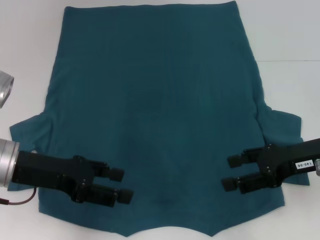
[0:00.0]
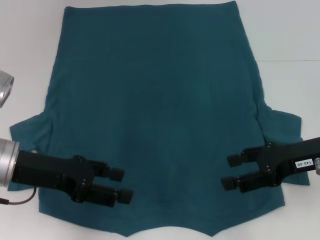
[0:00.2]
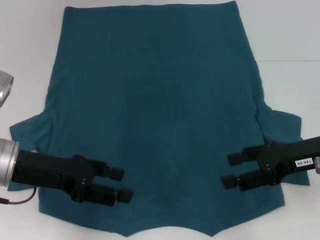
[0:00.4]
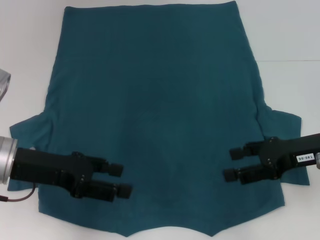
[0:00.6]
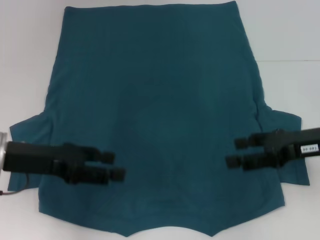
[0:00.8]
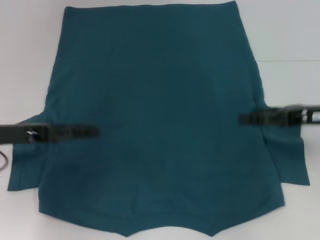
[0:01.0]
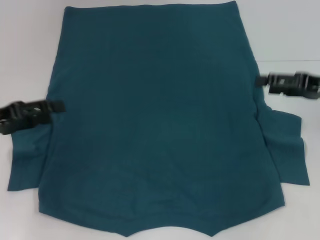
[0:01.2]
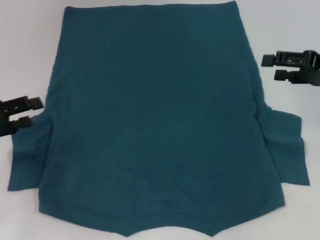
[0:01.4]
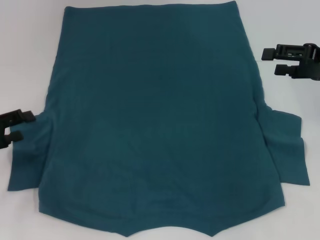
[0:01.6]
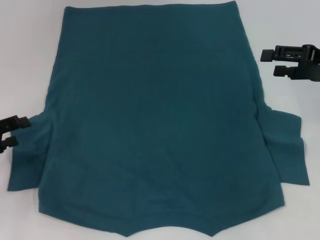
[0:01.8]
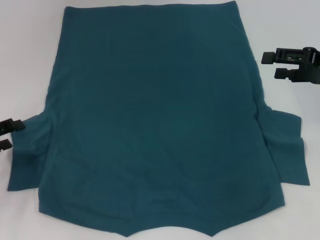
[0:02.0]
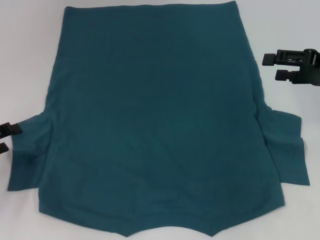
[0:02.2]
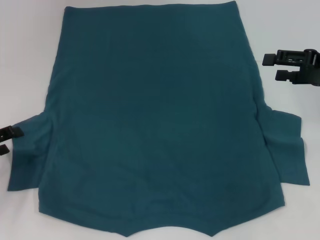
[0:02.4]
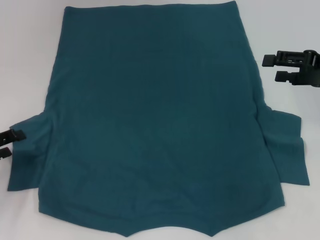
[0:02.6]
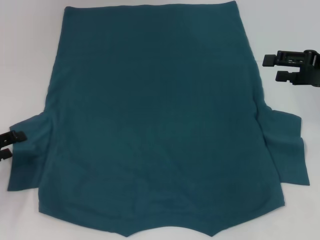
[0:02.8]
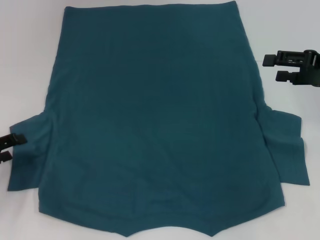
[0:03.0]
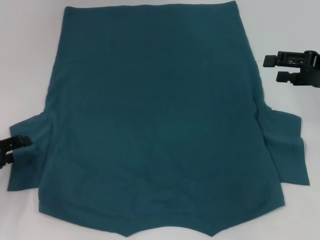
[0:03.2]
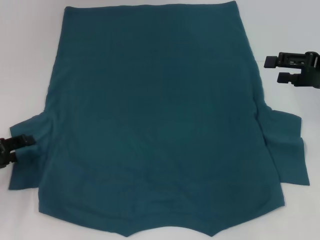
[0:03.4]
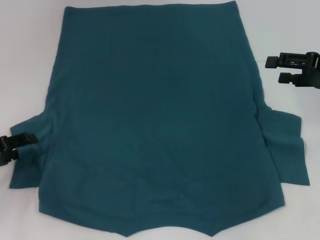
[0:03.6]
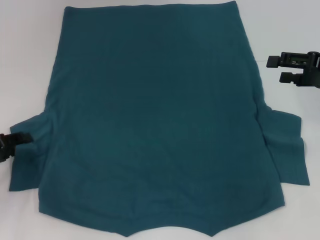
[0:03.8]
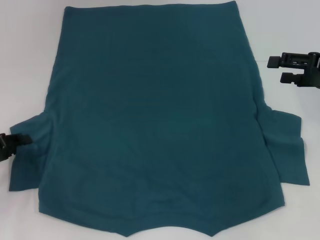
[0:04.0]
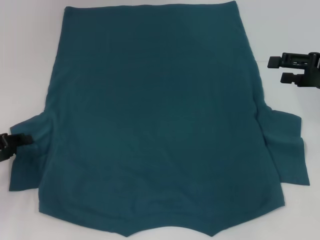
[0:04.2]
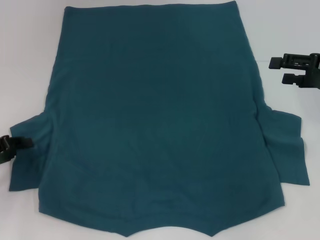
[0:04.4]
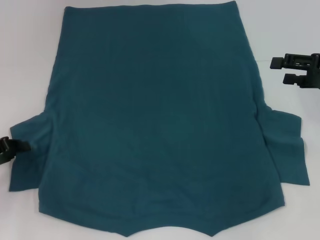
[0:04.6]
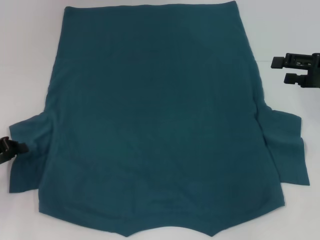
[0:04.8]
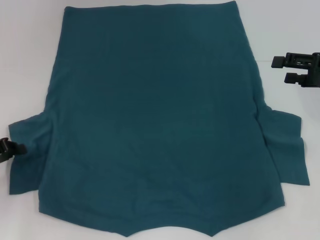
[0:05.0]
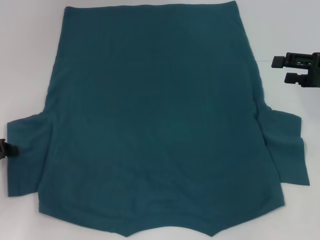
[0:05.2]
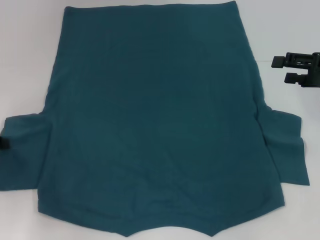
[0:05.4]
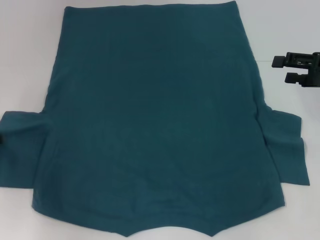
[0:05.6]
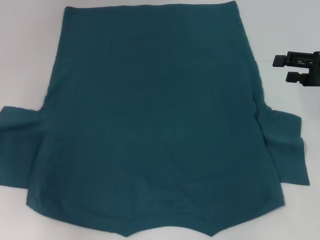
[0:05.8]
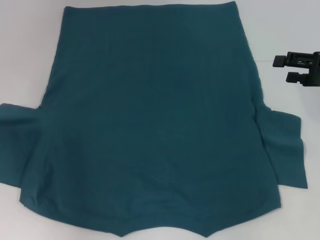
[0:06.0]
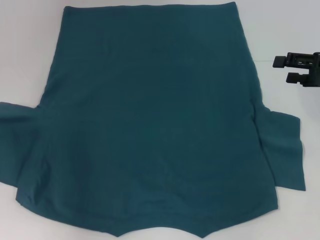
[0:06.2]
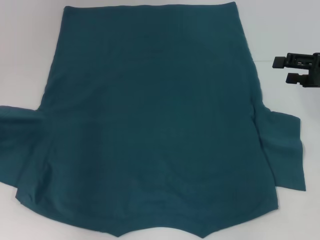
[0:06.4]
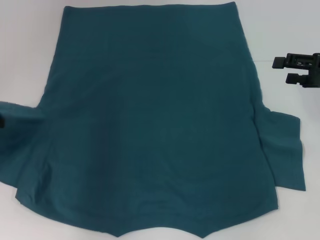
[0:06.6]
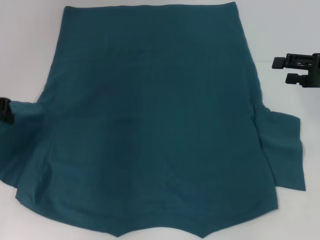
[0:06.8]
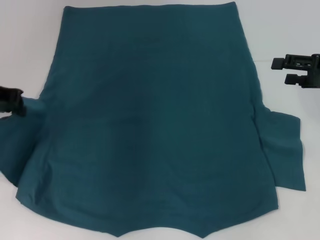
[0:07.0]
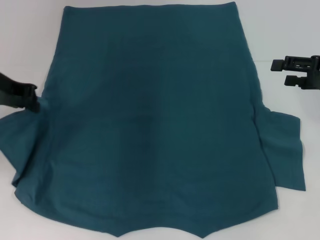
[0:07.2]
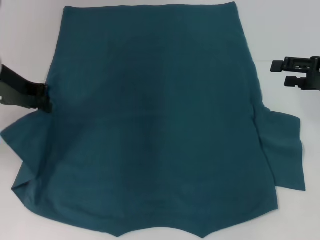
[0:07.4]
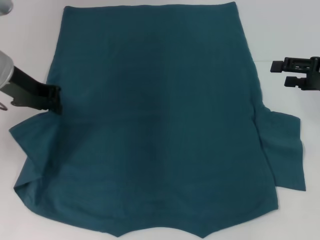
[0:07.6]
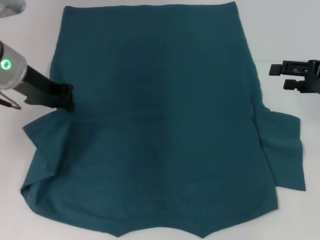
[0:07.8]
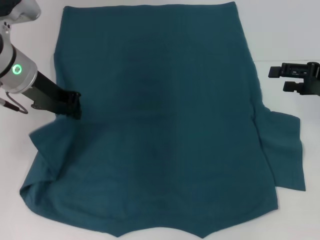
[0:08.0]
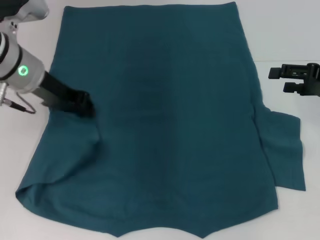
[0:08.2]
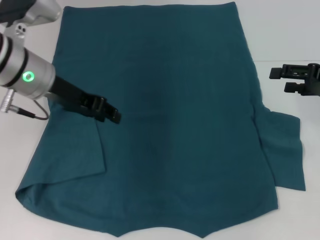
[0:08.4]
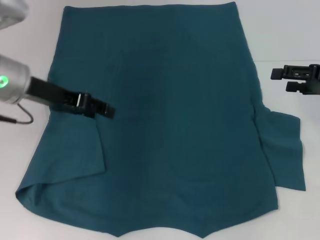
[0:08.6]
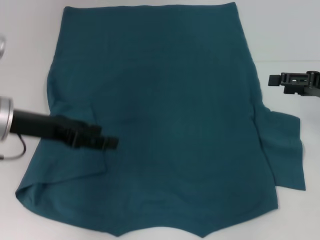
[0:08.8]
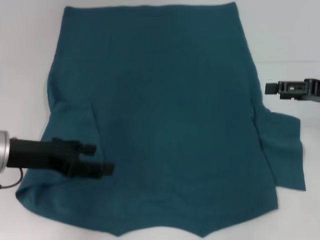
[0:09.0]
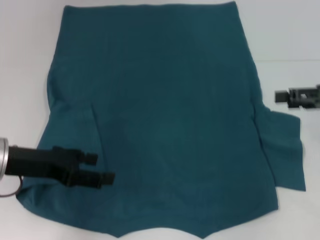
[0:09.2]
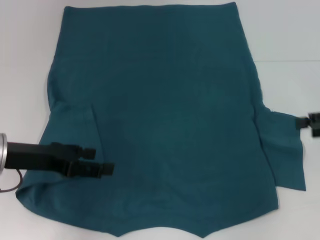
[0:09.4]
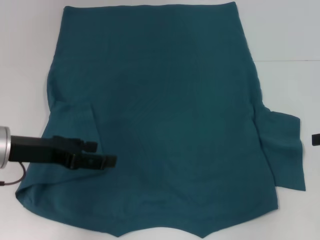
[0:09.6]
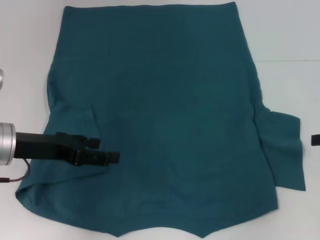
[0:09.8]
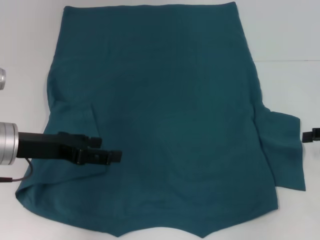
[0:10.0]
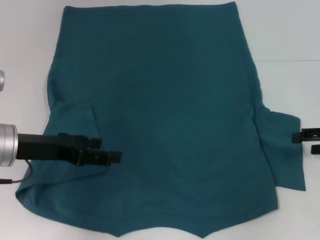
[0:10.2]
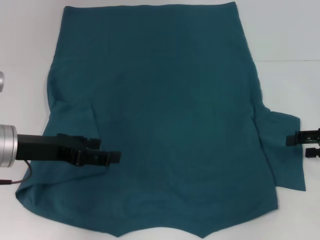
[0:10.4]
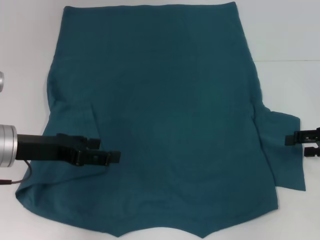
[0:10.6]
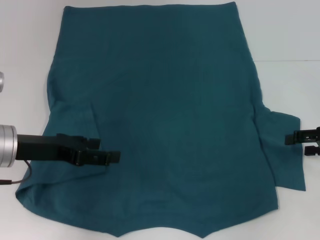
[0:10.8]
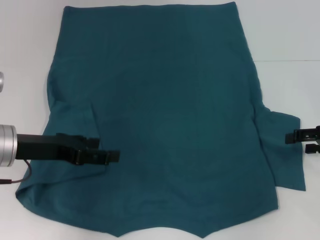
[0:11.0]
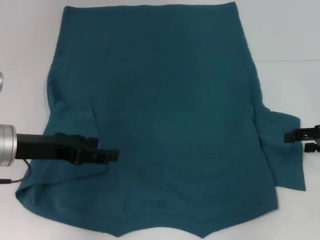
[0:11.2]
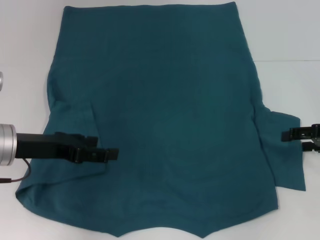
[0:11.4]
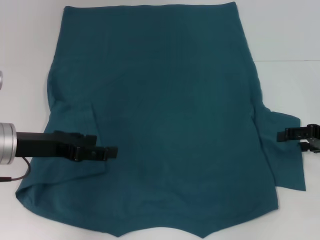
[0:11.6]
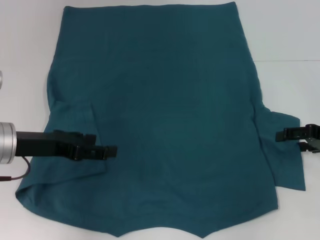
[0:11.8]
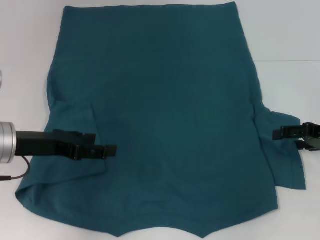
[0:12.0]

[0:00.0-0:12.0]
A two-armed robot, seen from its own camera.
Step, 0:00.0 to 0:09.0: Fold the bottom left sleeve with your left hand.
0:00.0 to 0:01.6: The right gripper shifts about 10 cm forward, to the right and upward, while the left gripper is displaced to the left by some 10 cm.
0:01.6 to 0:04.4: The grippers move only a little.
0:04.4 to 0:06.0: The left gripper travels upward and forward by approximately 10 cm, and closes up.
0:06.0 to 0:07.6: The left gripper goes approximately 15 cm to the right, upward and forward.
0:07.6 to 0:09.0: The left gripper heads backward and downward, covering approximately 10 cm, and opens.
0:09.0 to 0:10.4: The right gripper is displaced downward by some 5 cm.
0:10.4 to 0:12.0: The grippers move only a little.

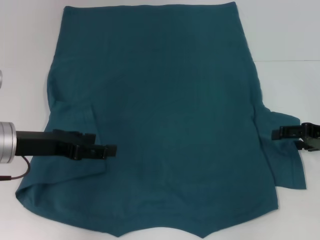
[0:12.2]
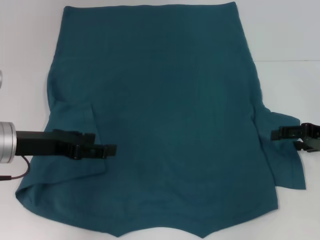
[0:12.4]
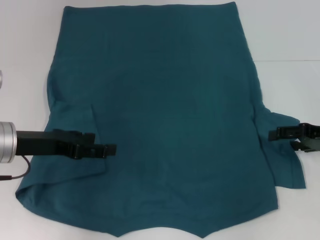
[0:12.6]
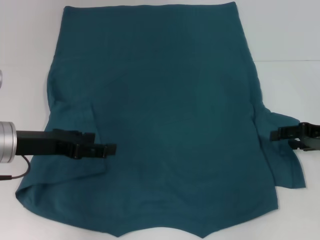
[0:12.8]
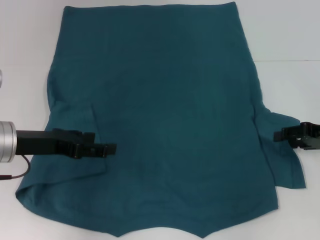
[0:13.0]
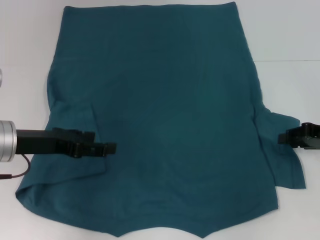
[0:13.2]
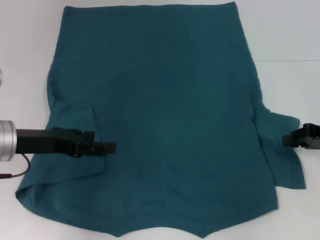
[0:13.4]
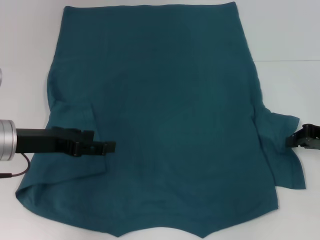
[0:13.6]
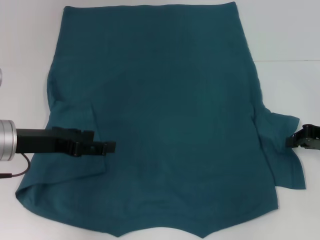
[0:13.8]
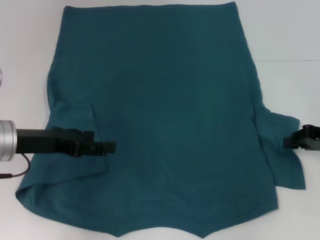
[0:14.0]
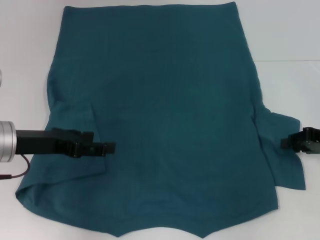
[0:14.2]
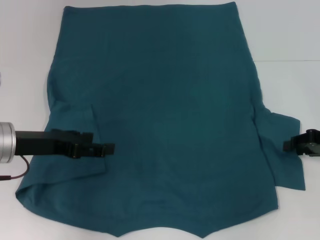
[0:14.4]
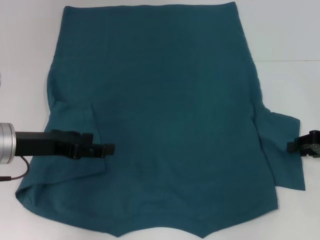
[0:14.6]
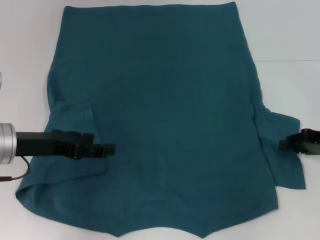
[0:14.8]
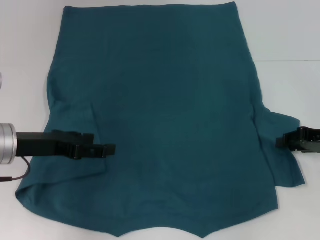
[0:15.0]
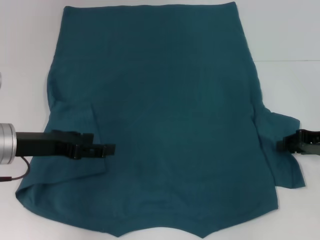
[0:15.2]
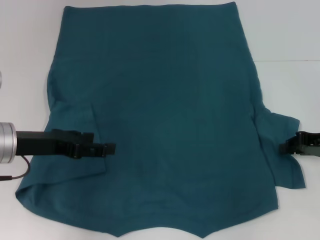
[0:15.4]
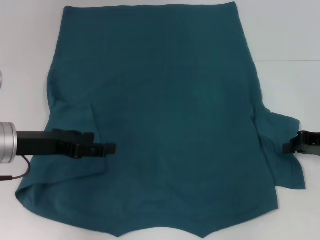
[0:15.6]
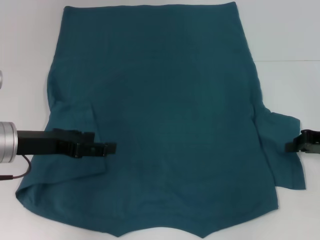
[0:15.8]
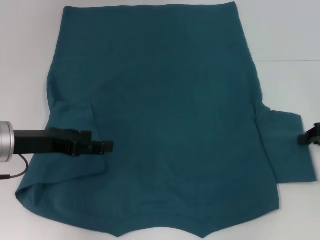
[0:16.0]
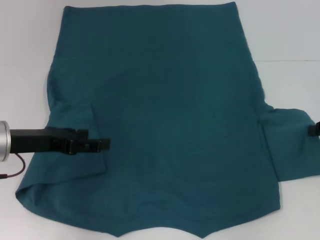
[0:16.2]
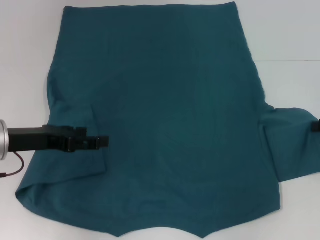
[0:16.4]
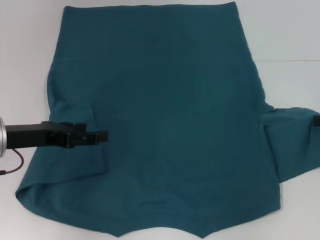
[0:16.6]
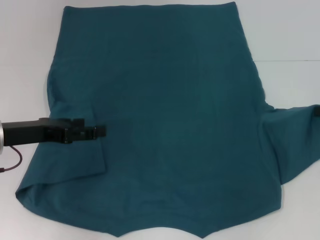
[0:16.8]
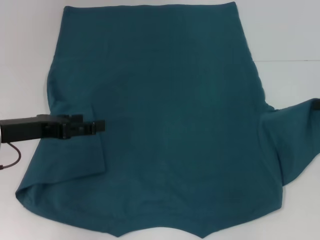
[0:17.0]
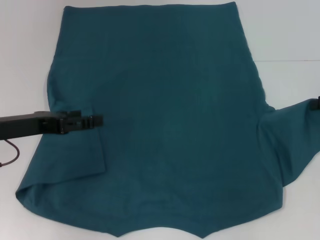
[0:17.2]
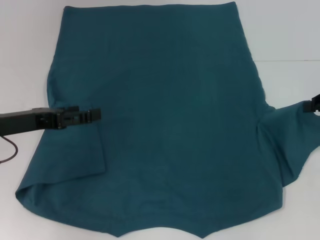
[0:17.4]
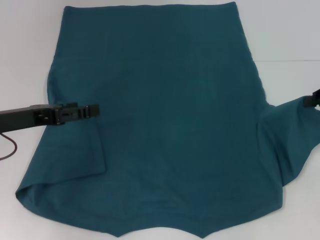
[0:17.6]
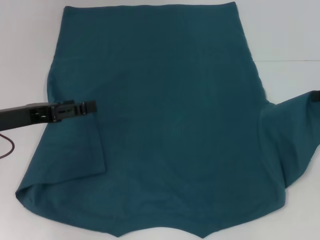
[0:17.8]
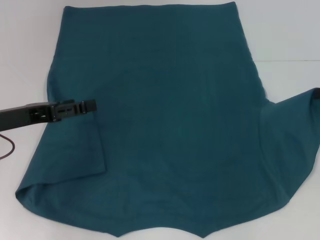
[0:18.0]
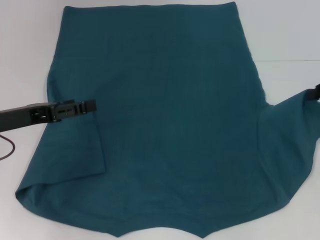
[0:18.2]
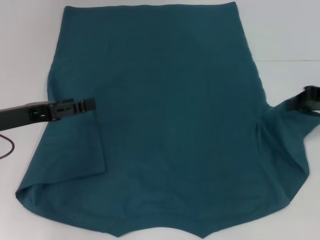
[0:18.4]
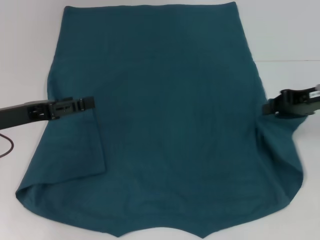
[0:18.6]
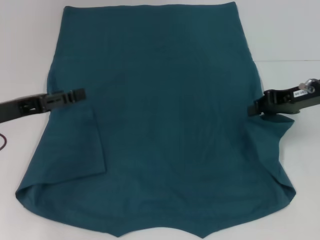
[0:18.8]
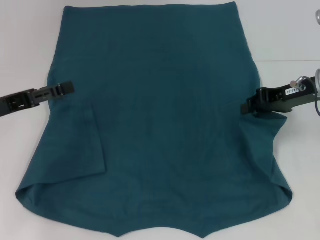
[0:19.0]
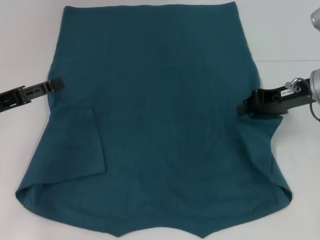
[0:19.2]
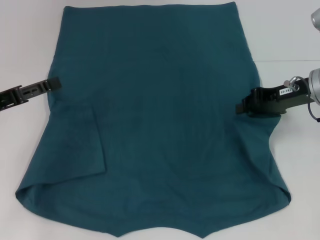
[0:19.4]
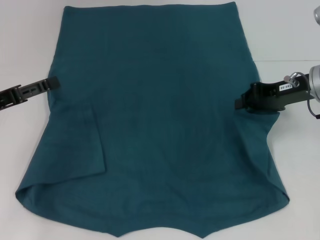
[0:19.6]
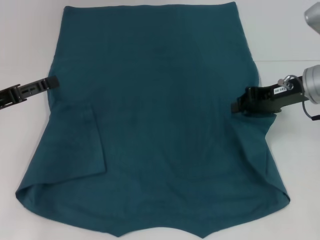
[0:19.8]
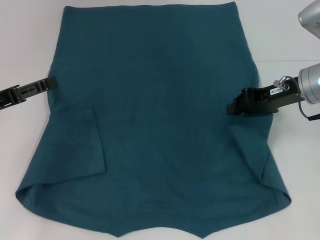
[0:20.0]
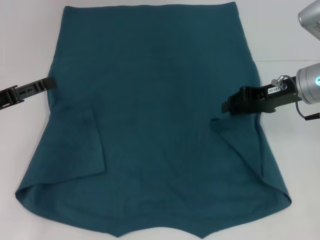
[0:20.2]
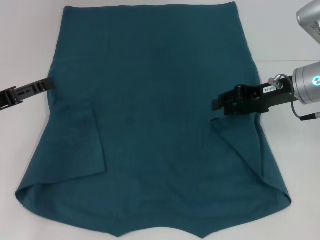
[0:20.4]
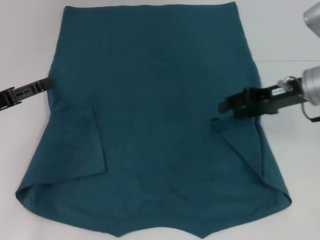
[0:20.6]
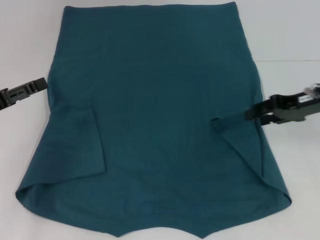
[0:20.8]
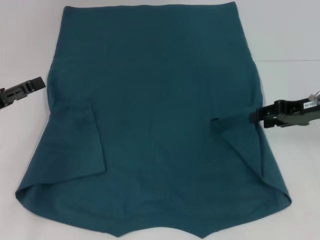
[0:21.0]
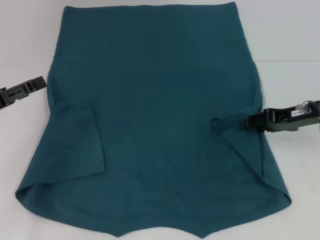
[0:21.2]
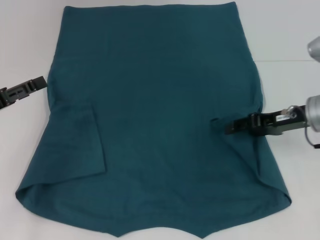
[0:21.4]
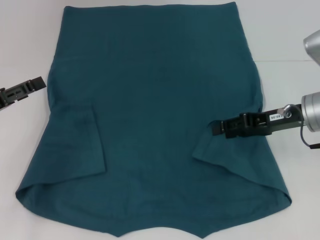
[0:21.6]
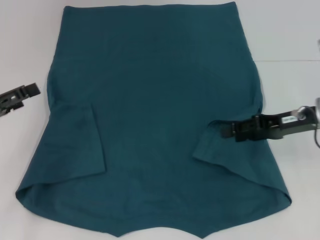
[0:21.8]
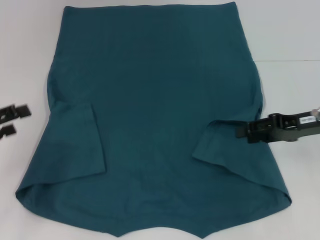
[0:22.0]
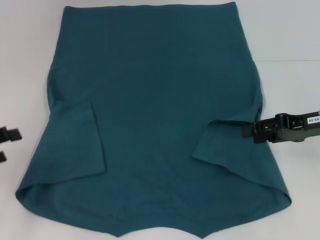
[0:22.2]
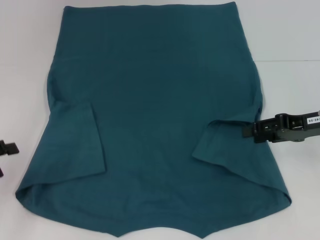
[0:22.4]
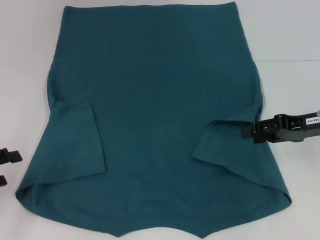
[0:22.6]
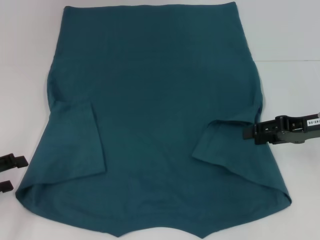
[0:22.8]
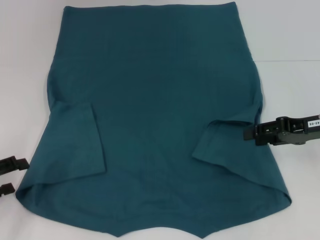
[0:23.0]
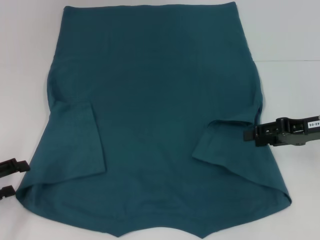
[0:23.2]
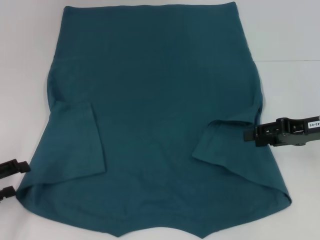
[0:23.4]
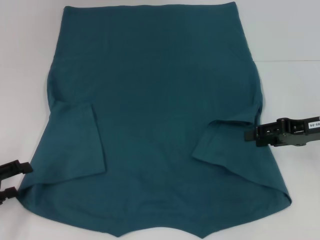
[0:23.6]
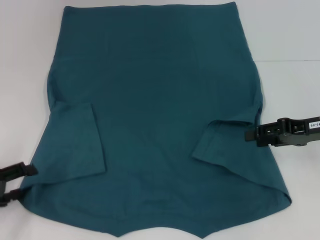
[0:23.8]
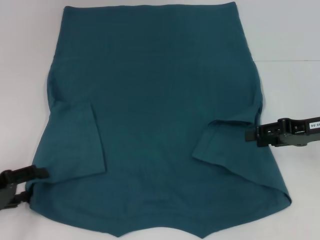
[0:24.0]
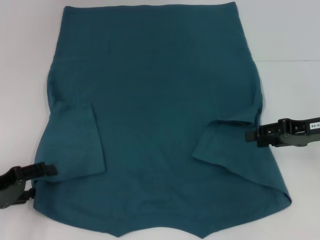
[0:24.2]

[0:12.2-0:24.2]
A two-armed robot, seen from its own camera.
Step, 0:12.2 to 0:21.6: Fold the bottom right sleeve to the right.
0:12.2 to 0:13.8: The right gripper closes up.
0:13.8 to 0:15.2: The right gripper opens.
0:15.2 to 0:16.6: The right gripper shifts by some 5 cm, and closes.
0:16.6 to 0:18.2: The right gripper ends up roughly 5 cm from where it was.
0:18.2 to 0:19.8: The right gripper is displaced to the left by approximately 10 cm.
0:19.8 to 0:21.2: The right gripper opens its fingers.
0:21.2 to 0:22.6: The left gripper travels backward by some 5 cm.
0:22.6 to 0:24.2: The left gripper shifts by approximately 5 cm.
